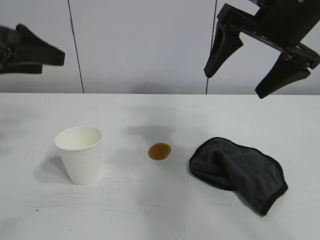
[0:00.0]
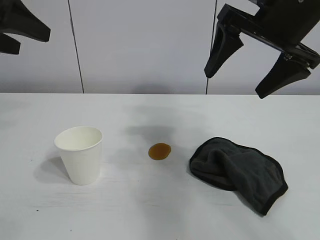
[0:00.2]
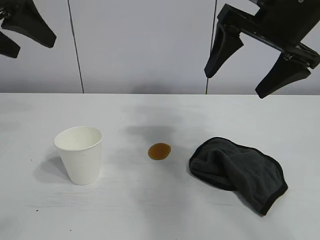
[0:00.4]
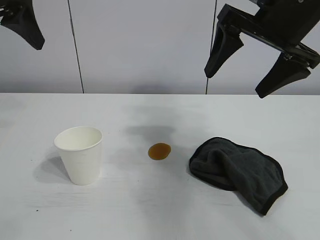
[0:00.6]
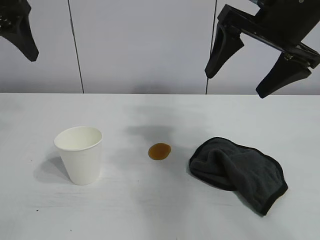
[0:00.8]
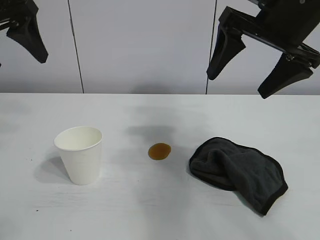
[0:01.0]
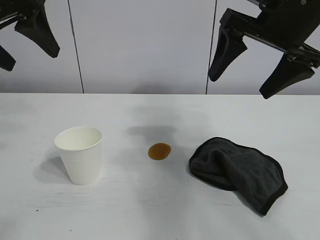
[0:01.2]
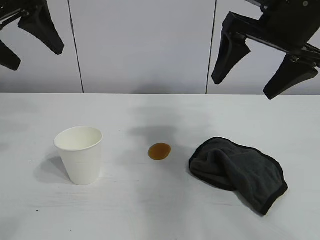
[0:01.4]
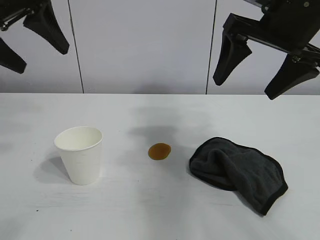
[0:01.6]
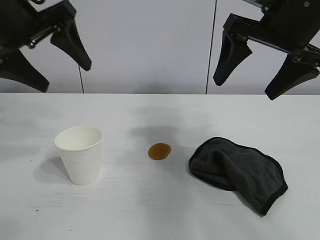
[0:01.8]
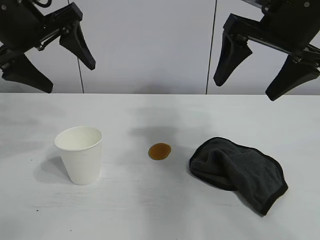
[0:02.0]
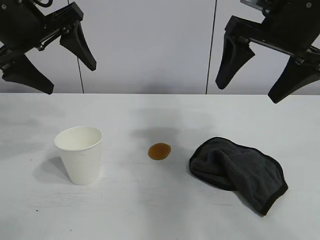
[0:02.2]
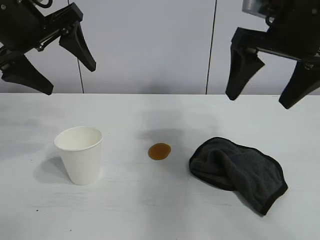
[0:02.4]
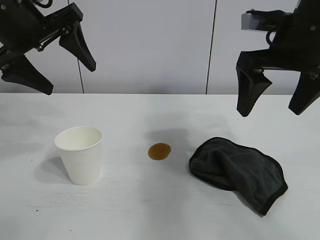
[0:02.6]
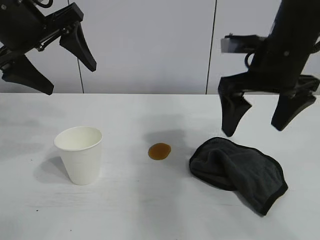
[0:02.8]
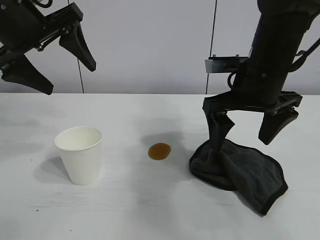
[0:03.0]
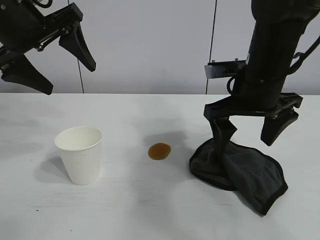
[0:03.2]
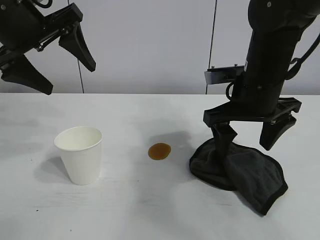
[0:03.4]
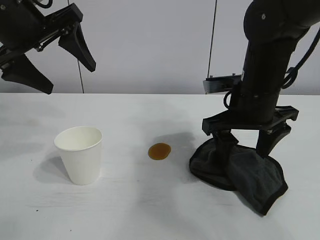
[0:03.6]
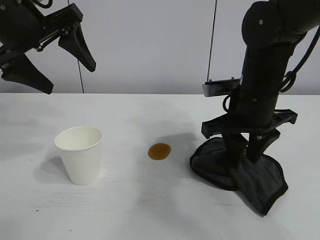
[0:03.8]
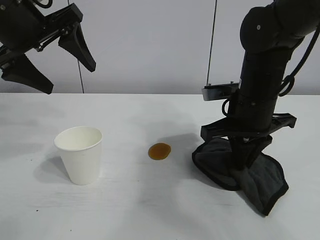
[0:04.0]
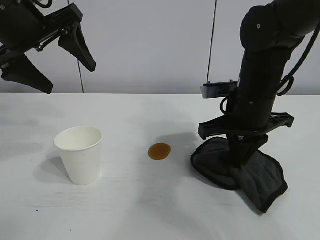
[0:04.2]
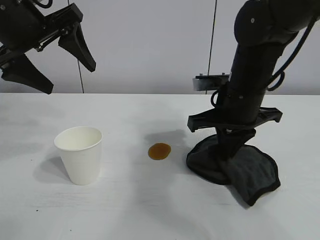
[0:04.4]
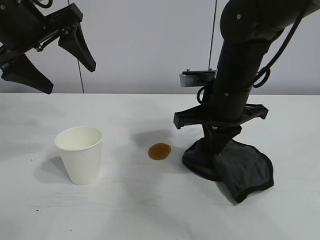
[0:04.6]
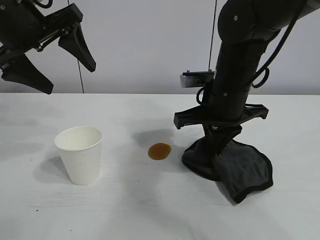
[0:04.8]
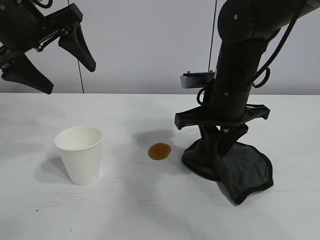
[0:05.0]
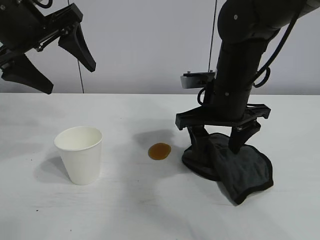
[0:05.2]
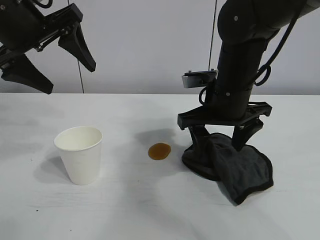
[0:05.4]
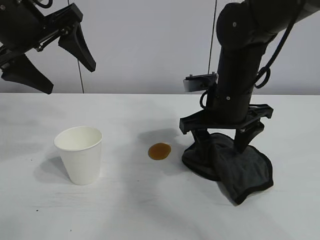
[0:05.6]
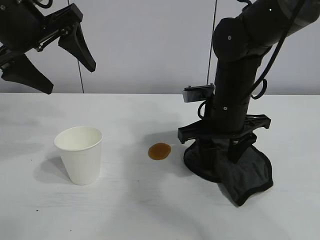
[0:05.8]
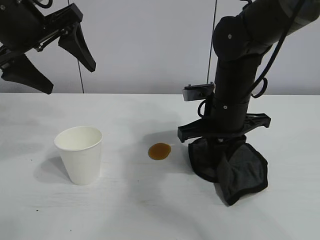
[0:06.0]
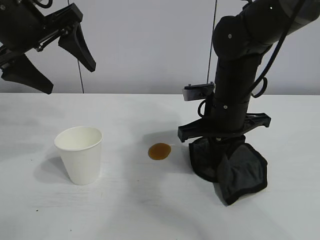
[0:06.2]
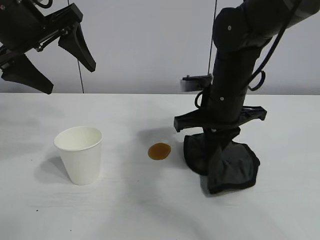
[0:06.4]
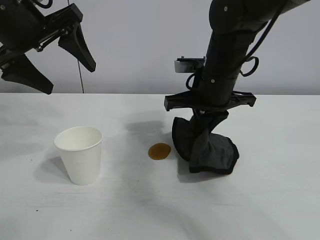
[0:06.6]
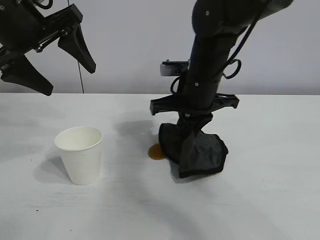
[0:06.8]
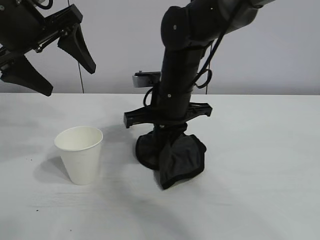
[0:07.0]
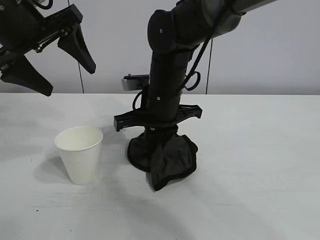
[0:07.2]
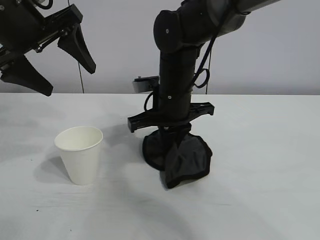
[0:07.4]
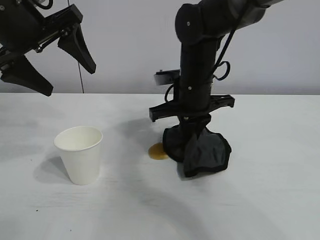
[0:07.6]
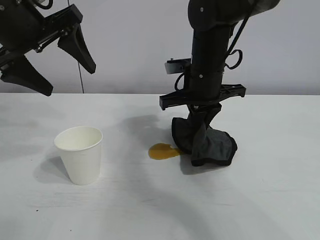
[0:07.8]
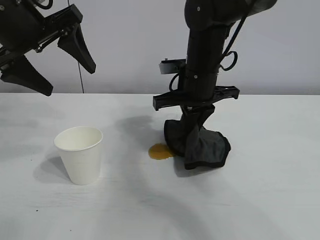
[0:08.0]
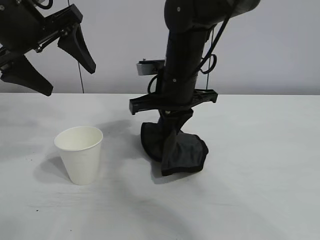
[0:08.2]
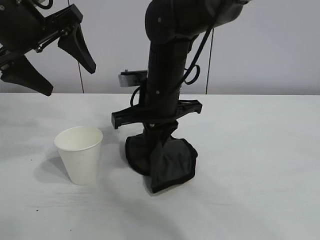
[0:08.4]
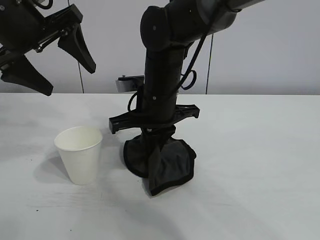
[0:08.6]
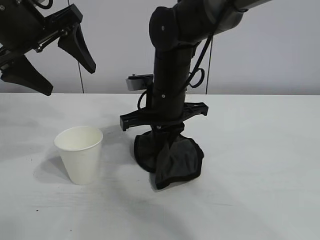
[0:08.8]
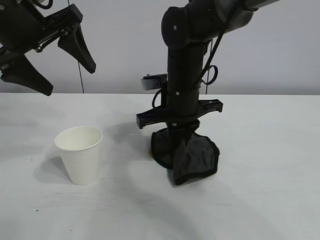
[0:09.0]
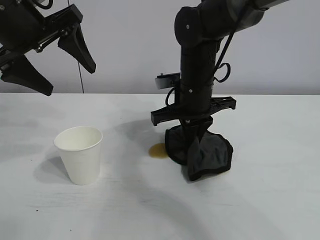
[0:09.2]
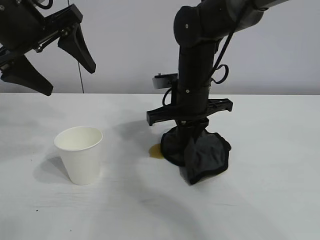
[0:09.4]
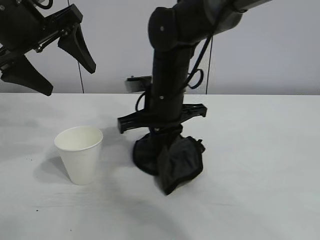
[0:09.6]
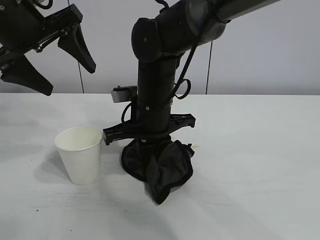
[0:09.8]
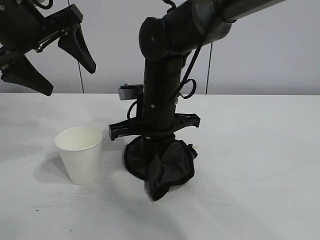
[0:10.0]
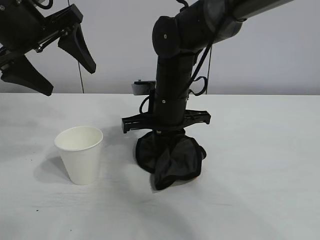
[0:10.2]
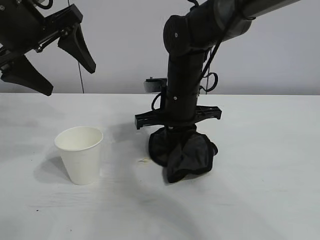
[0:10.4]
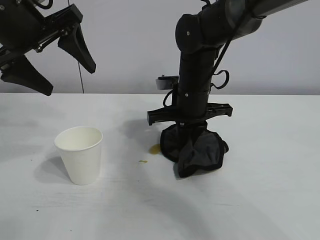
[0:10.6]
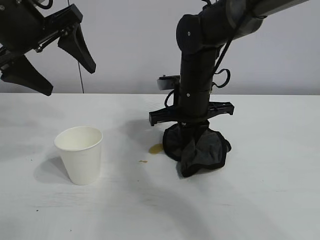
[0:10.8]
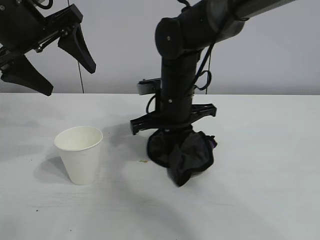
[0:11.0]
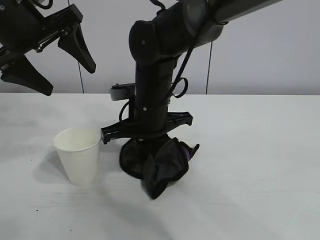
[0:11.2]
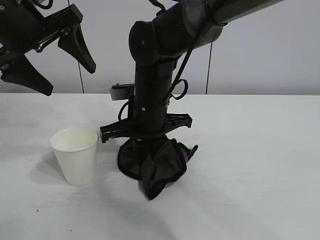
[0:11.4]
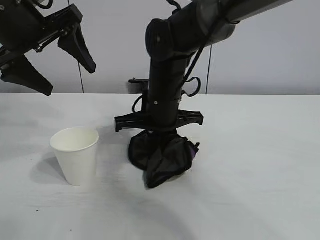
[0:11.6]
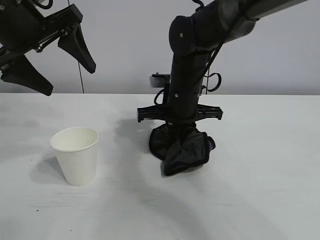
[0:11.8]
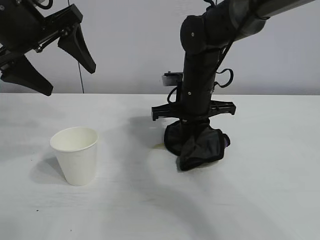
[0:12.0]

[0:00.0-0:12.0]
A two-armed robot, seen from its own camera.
Task of the whole recording: the left gripper pick up the fallen cup and place it upright, the right gripper grasp the black rag and wipe the stain on the table, the right gripper put the black rag back in its original position.
Step, 0:00.0 to 0:04.0: Grasp the rag with right gripper.

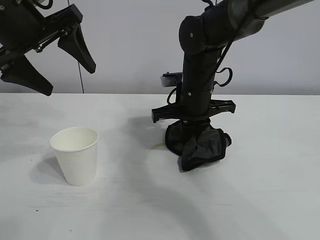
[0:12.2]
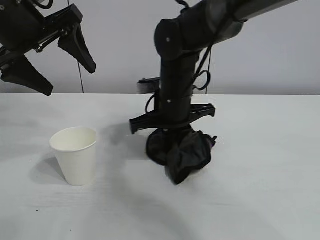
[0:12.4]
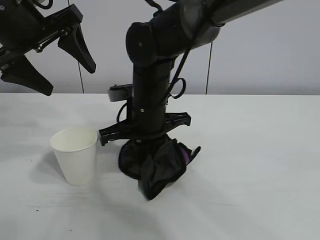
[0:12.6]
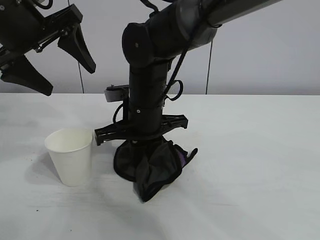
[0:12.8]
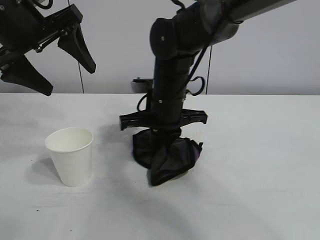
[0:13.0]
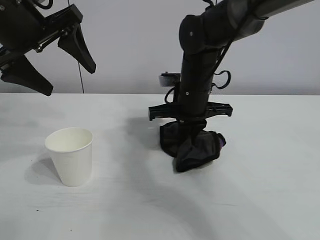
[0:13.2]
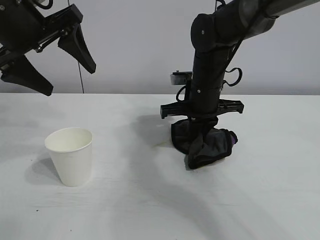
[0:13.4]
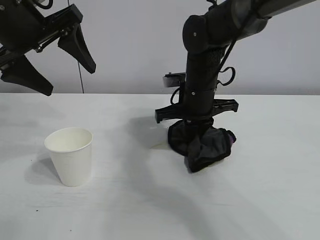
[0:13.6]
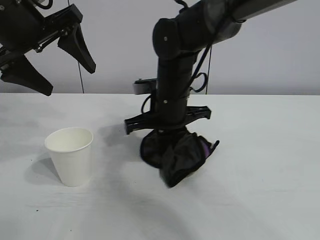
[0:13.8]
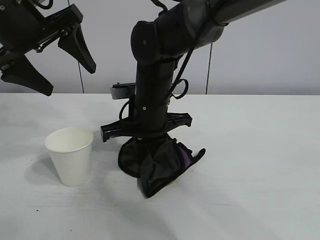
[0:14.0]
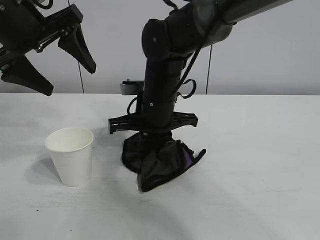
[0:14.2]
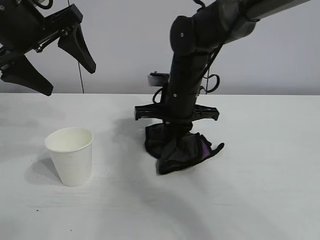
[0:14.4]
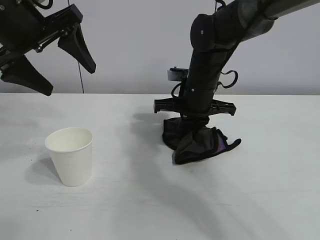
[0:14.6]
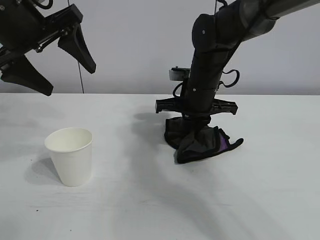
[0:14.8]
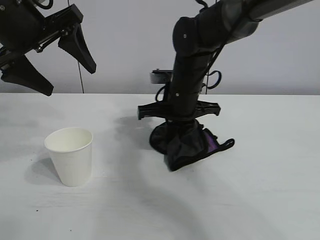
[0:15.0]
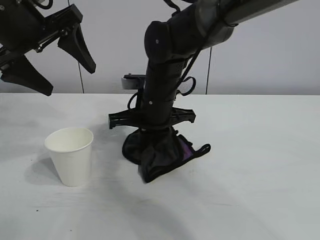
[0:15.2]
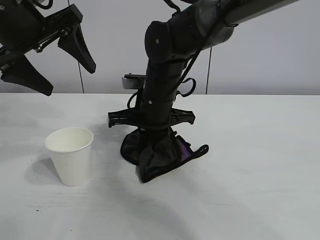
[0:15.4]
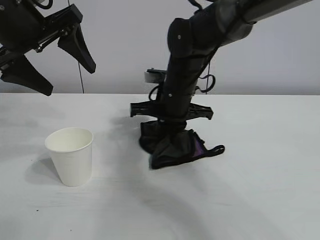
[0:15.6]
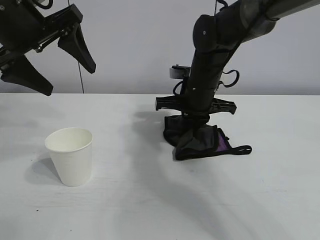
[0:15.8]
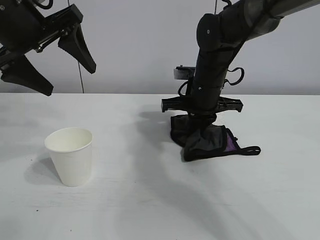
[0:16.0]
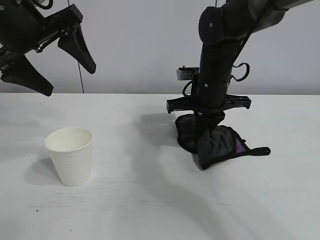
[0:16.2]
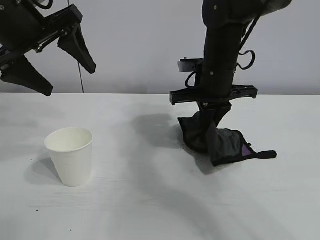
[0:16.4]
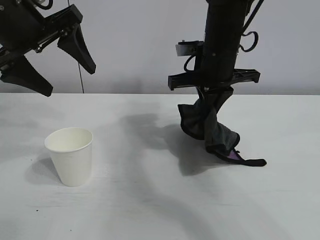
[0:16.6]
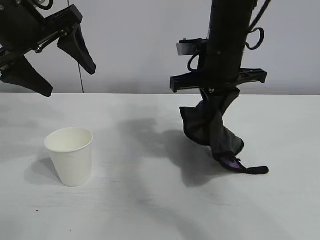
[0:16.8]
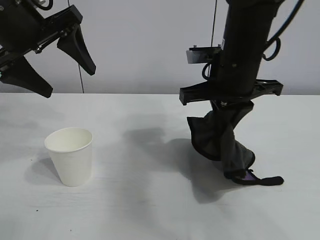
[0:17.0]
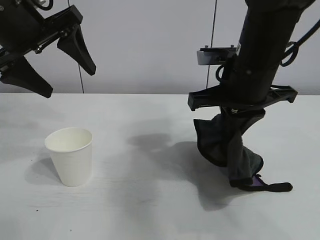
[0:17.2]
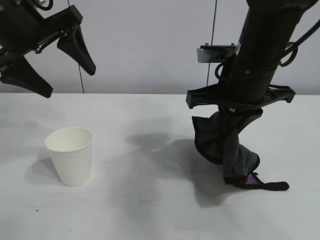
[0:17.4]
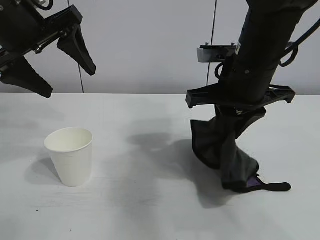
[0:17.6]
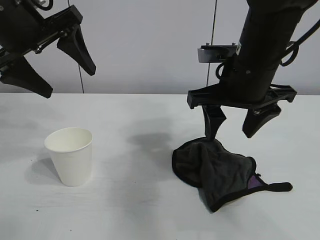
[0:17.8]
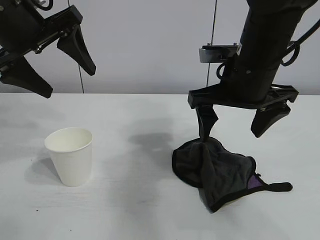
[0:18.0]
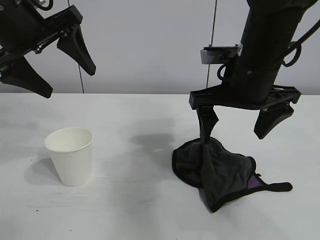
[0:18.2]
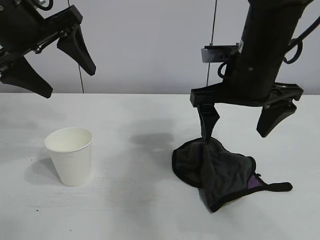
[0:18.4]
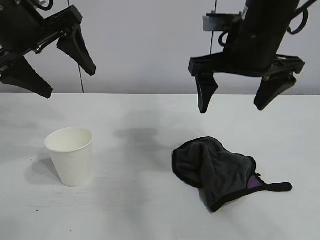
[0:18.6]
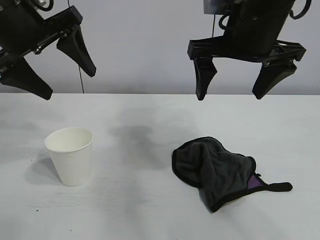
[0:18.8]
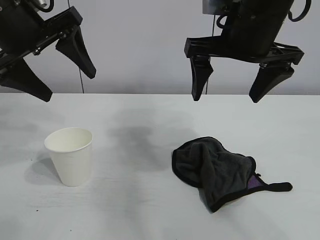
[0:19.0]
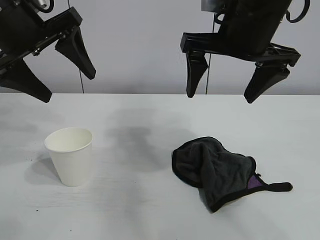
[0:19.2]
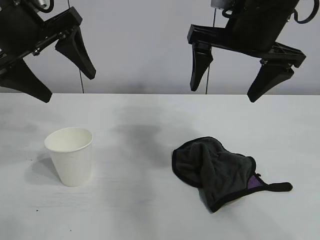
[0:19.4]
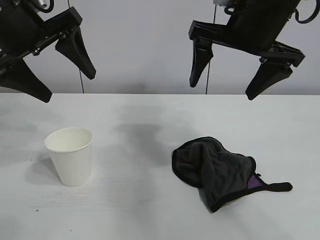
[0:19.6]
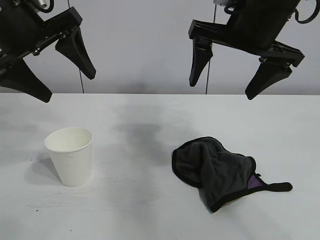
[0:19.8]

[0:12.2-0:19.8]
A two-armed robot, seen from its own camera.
Task of the whole recording: the left gripper pick up the fallen cup and place it upright, the right gripper grasp the black rag and wipe the stain on the table, the right gripper put the black rag back in its original position.
Step, 0:12.2 to 0:16.4: Wipe the stains off the table with the rag with right gripper.
Step, 0:16.6 to 0:18.0: Place the rag on the table with right gripper.
